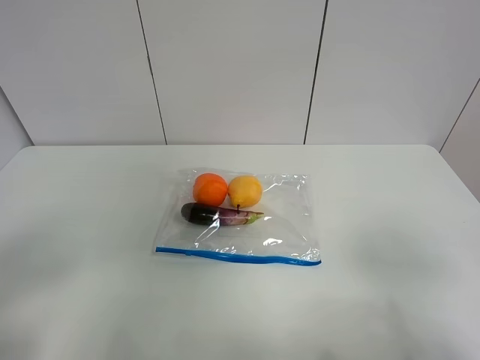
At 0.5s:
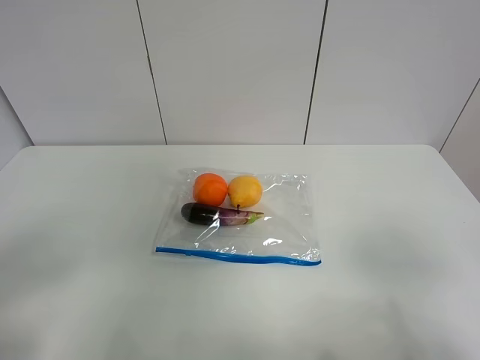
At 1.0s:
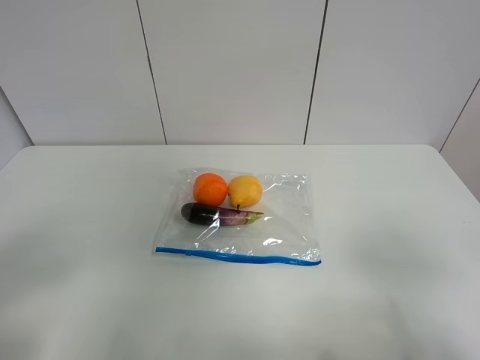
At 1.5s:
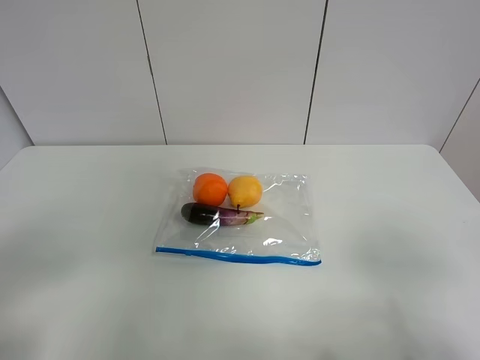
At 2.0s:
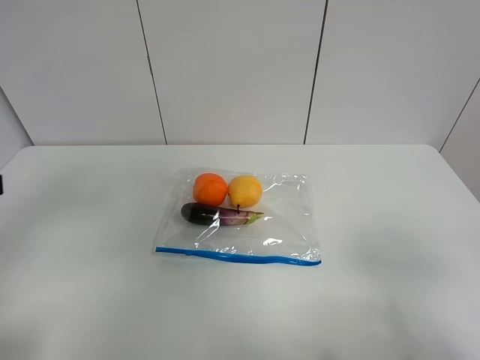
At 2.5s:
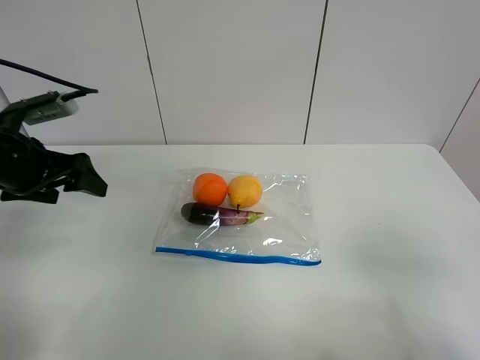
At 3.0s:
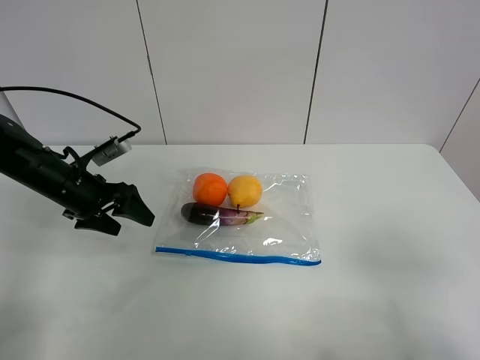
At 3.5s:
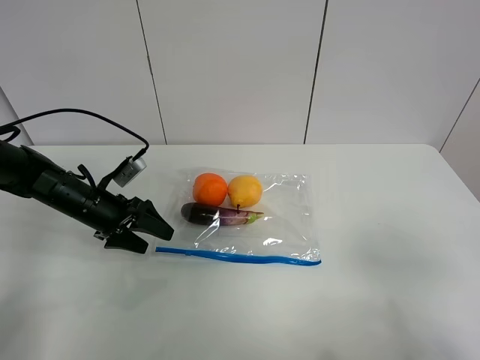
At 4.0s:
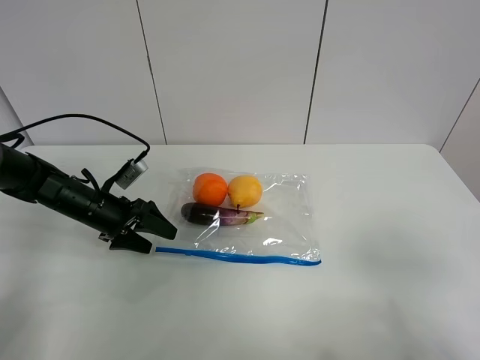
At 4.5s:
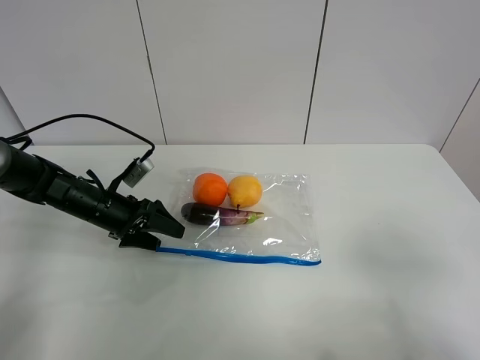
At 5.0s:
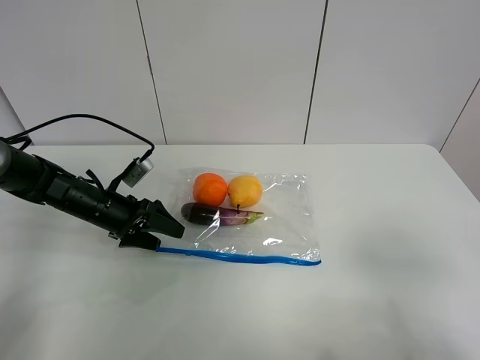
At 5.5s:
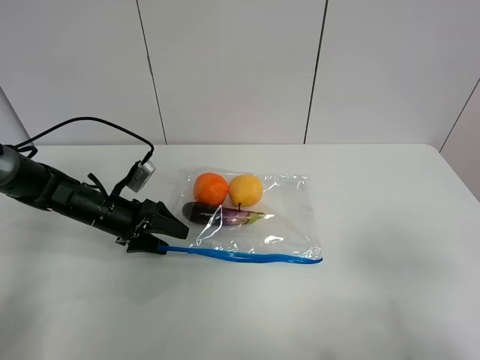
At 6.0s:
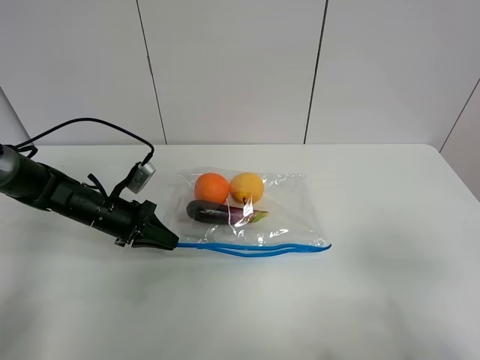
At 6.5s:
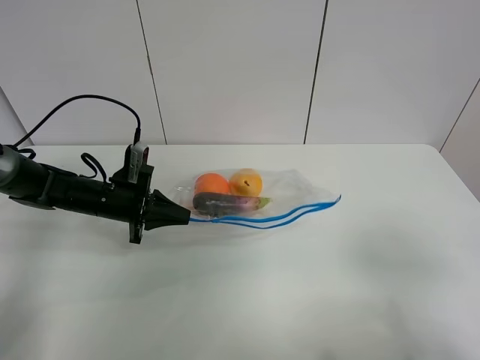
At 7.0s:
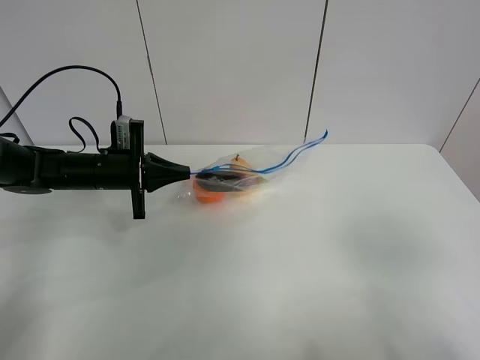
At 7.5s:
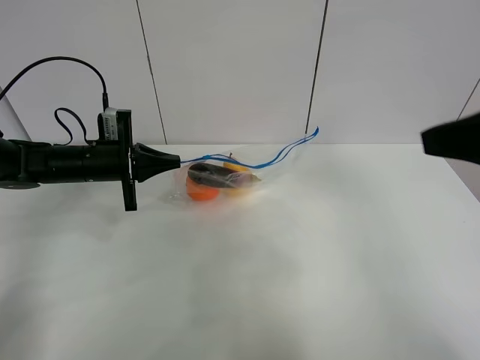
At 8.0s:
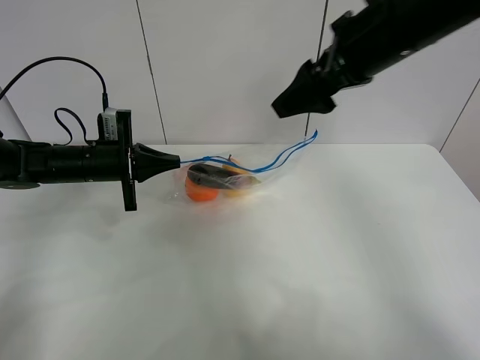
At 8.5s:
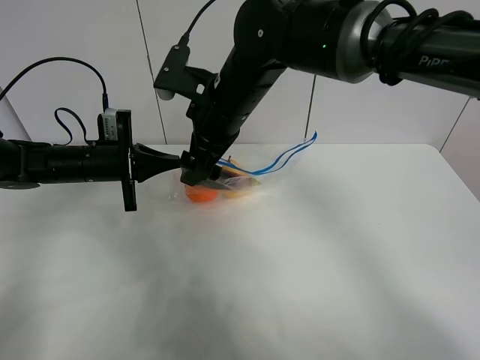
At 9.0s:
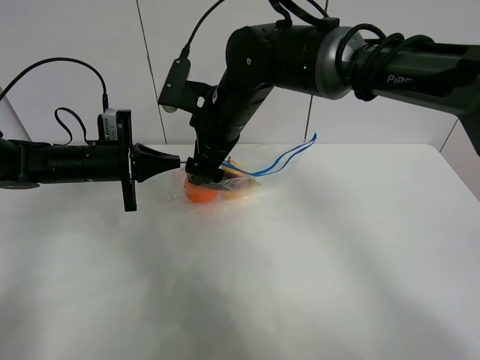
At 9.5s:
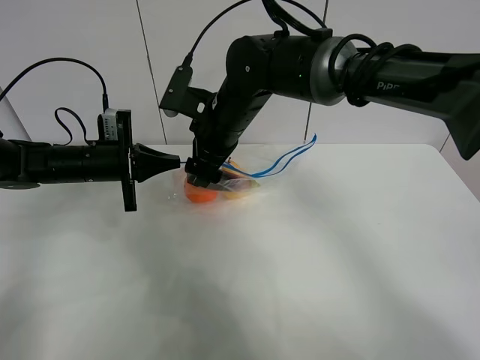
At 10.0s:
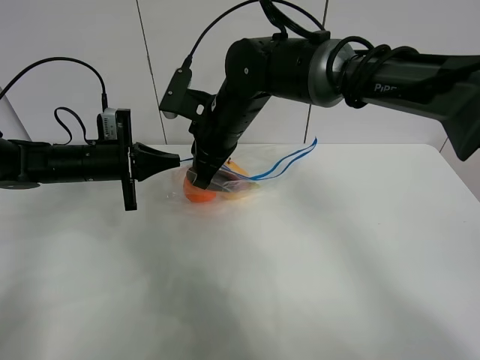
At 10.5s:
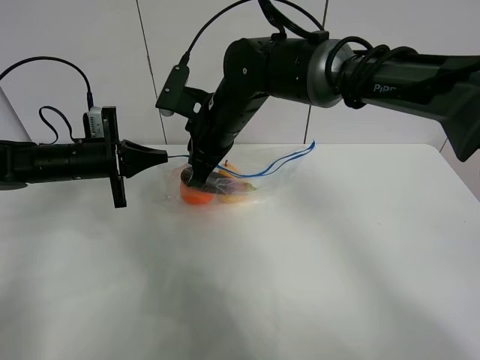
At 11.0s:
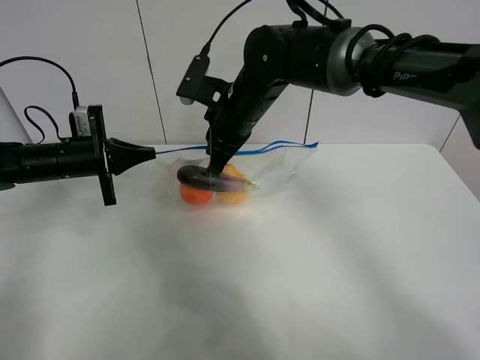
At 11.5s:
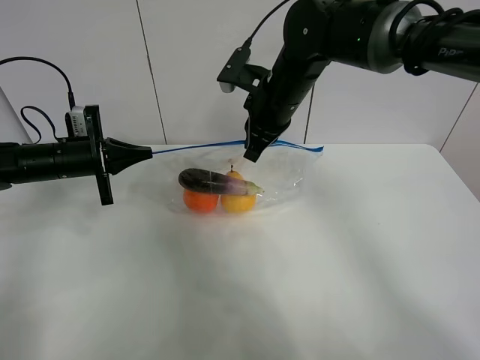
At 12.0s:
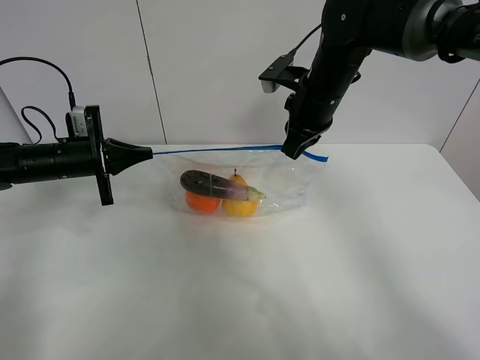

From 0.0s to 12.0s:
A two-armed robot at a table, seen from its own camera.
Step, from 0.0s to 6.0s: Grasp the fruit bag with left gripper.
Step, from 6.5s to 7.0s: Lift the fruit bag with your left gripper.
From 0.0s to 2.0s: The left gripper is displaced forward and upward by approximately 15 cm.
From 2.0s to 4.0s: The left gripper goes about 30 cm downward and forward.
From 4.0s to 6.0s: The left gripper closes its fingers.
From 6.0s to 8.0s: The right gripper heads forward and to the left, covering roughly 35 cm. The left gripper goes about 10 cm upward.
From 8.0s to 10.0s: The right gripper travels to the left and downward by roughly 20 cm, and closes.
From 10.0s to 12.0s: The right gripper is displaced to the right by some 15 cm. Meanwhile the left gripper is displaced to the left by approximately 5 cm.

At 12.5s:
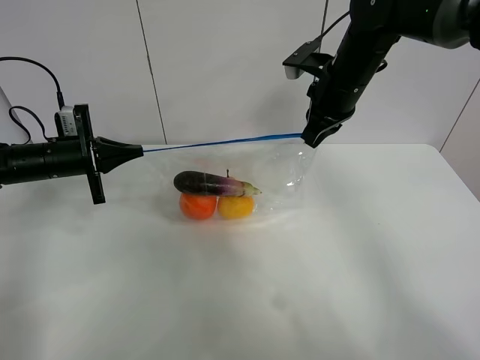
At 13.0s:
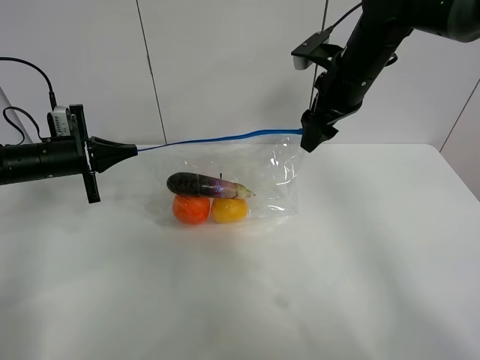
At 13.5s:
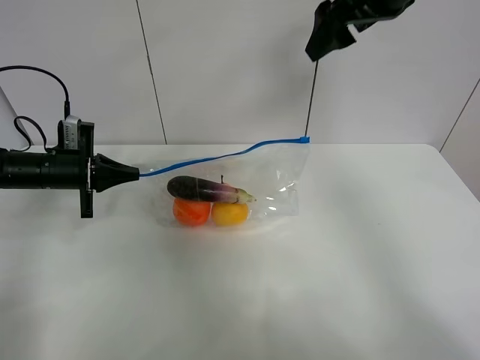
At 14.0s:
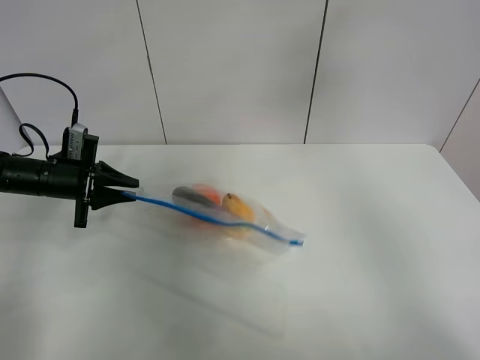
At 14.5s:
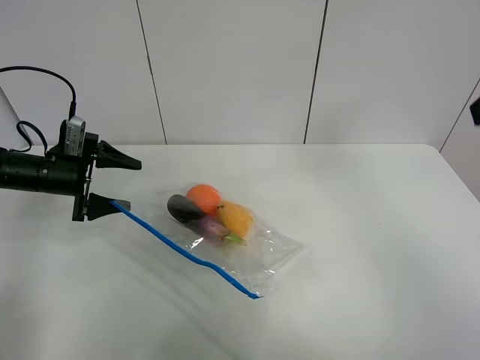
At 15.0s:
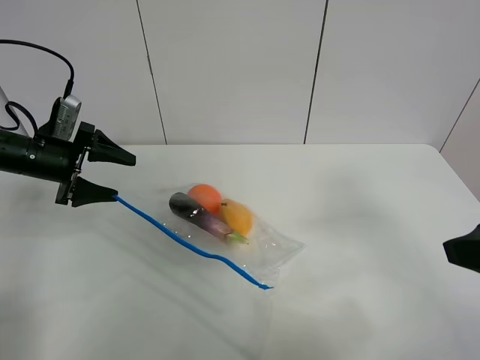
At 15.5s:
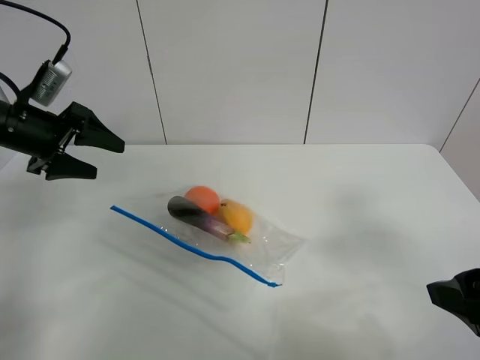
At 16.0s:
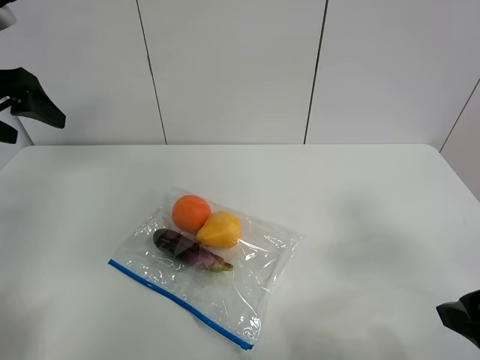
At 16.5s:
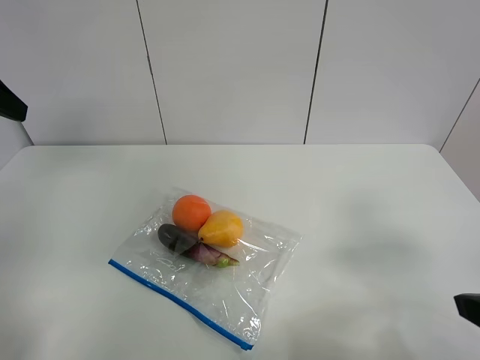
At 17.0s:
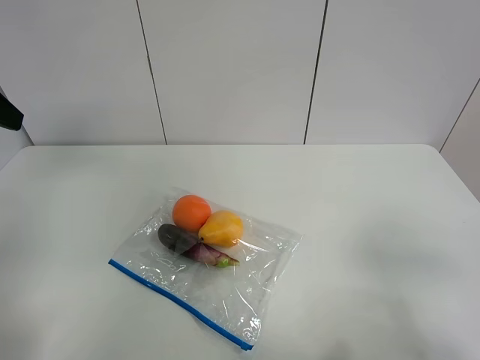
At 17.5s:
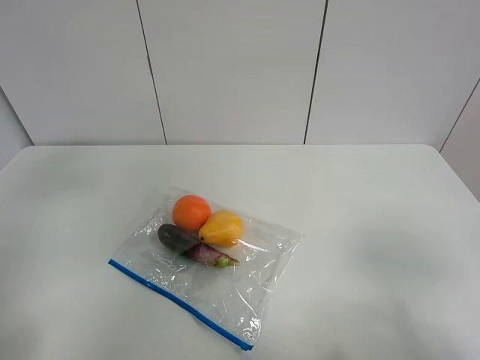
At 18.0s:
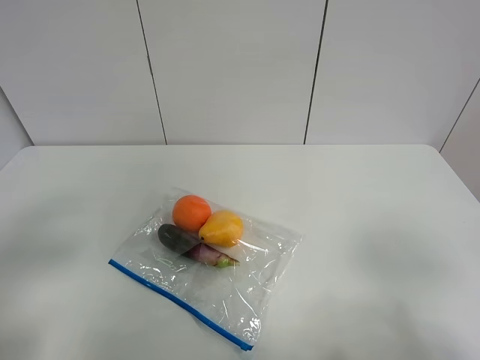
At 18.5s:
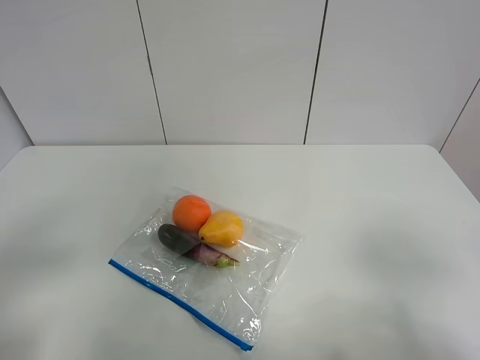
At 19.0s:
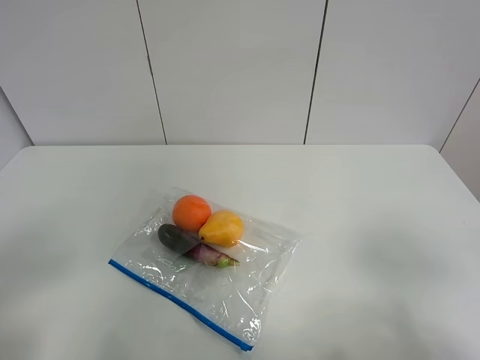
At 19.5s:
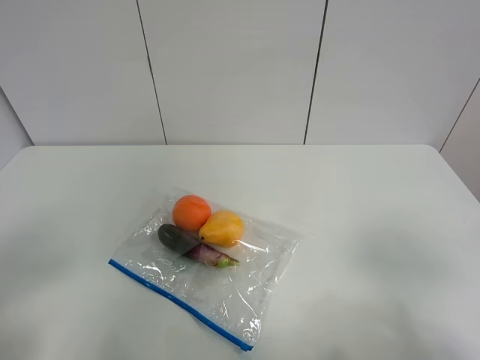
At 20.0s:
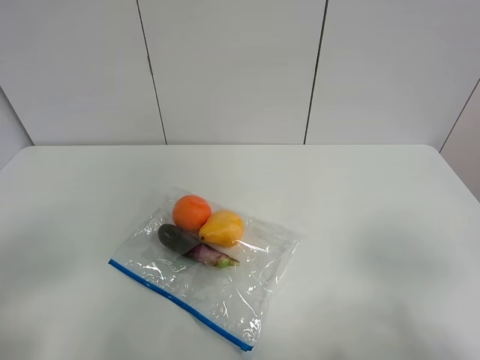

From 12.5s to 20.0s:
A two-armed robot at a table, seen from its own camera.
Step, from 13.5s to 15.5s: Place the fruit bag with left gripper.
From 12.5s to 14.5s: The right gripper goes about 30 cm backward, upward and to the right, and opens, while the left gripper opens.
From 14.5s to 16.5s: The left gripper goes about 25 cm upward and backward. Meanwhile the right gripper goes some 15 cm downward and backward.
From 16.5s to 18.0s: The left gripper heads backward and downward, covering some 20 cm. Meanwhile the right gripper shifts about 10 cm backward.
